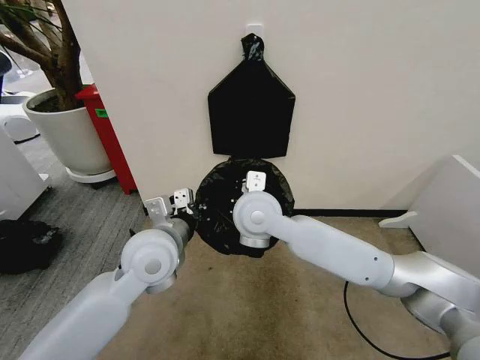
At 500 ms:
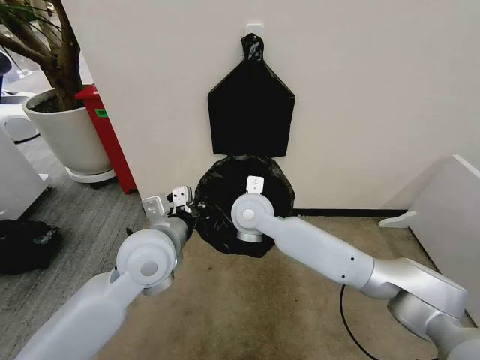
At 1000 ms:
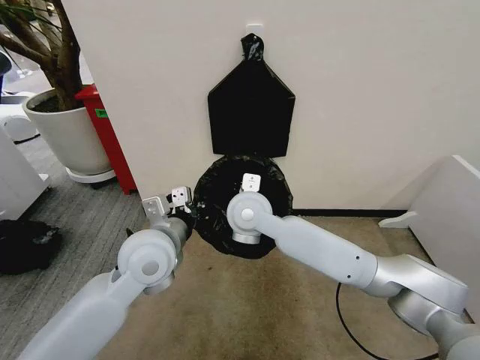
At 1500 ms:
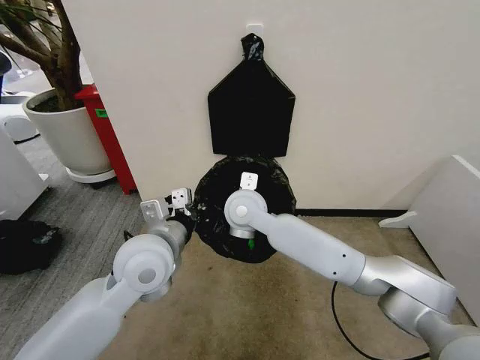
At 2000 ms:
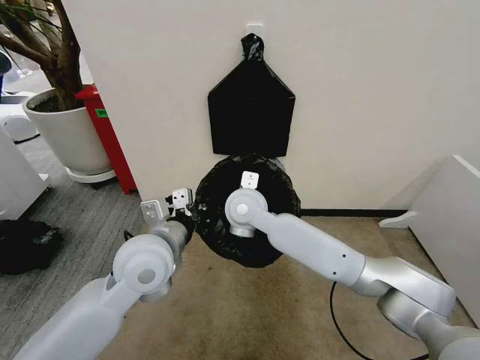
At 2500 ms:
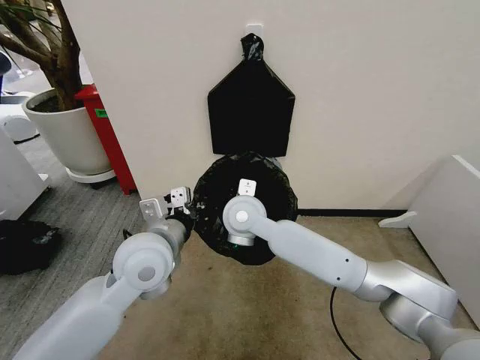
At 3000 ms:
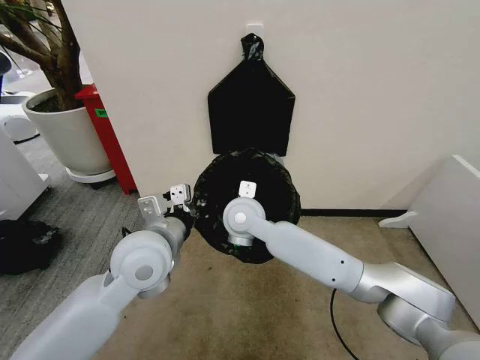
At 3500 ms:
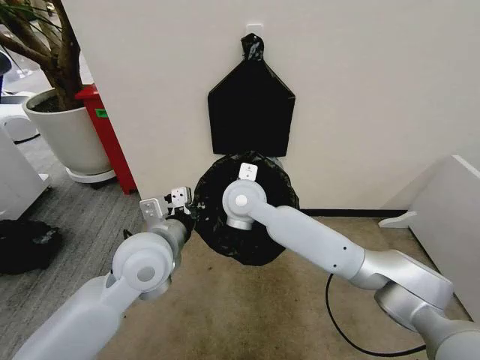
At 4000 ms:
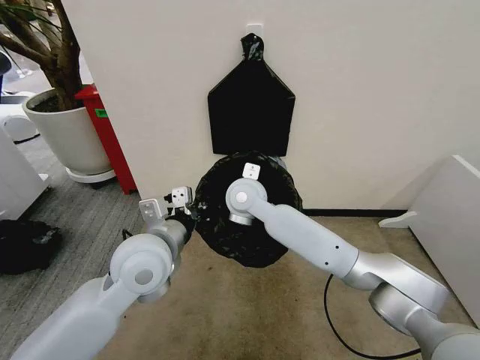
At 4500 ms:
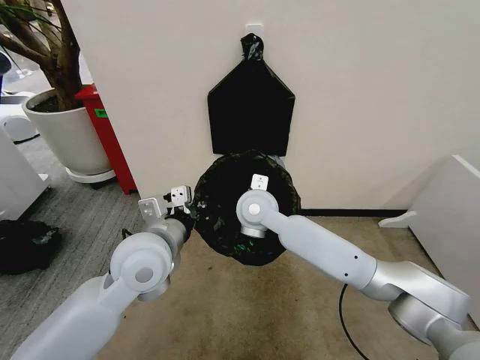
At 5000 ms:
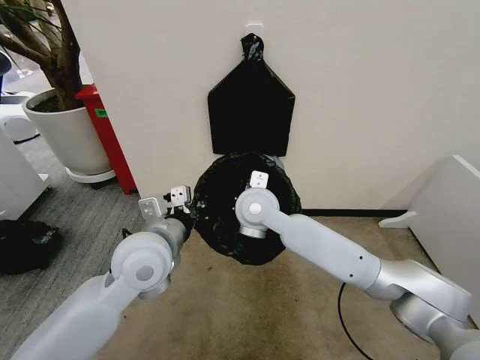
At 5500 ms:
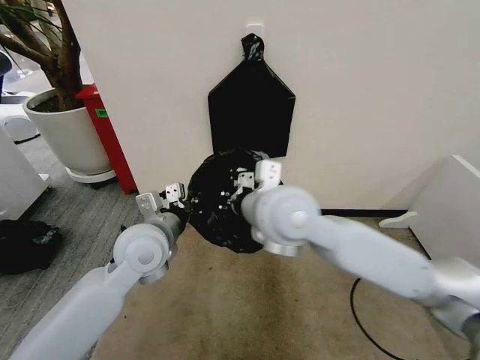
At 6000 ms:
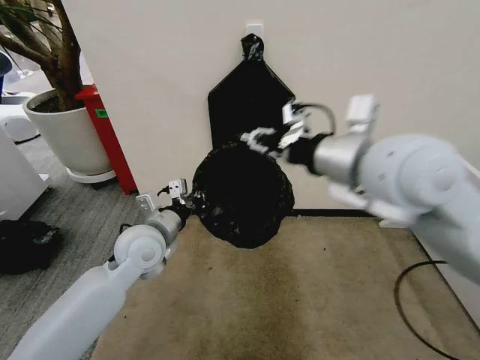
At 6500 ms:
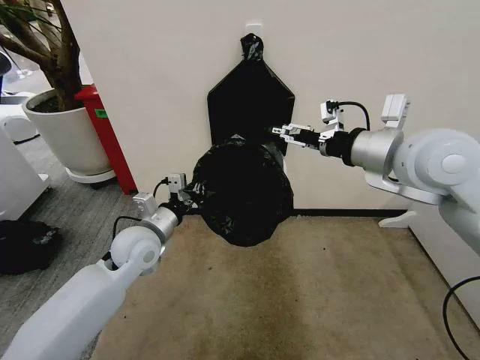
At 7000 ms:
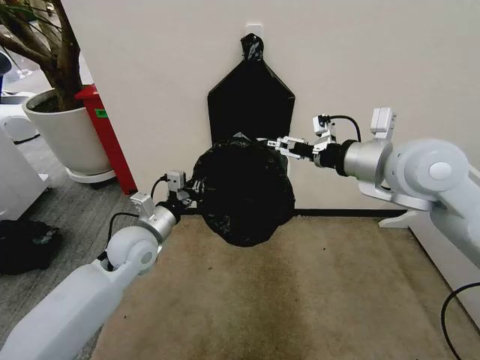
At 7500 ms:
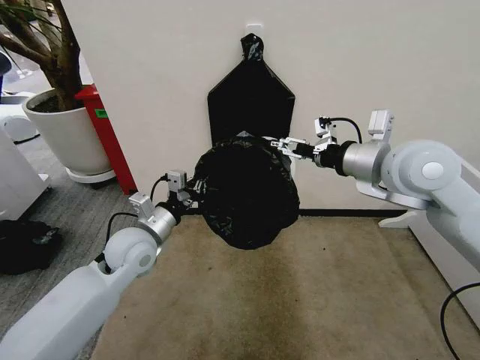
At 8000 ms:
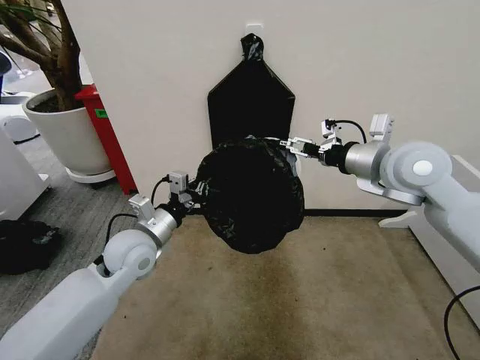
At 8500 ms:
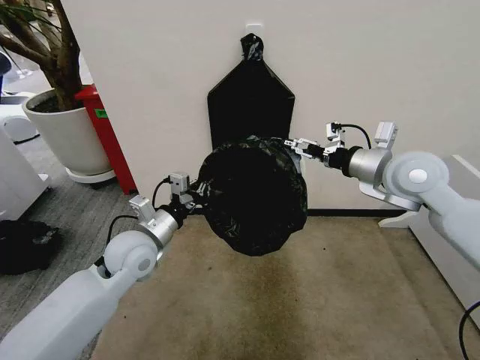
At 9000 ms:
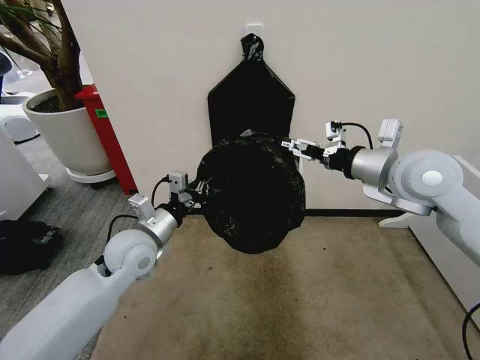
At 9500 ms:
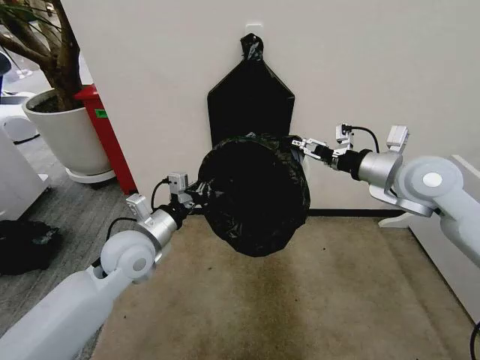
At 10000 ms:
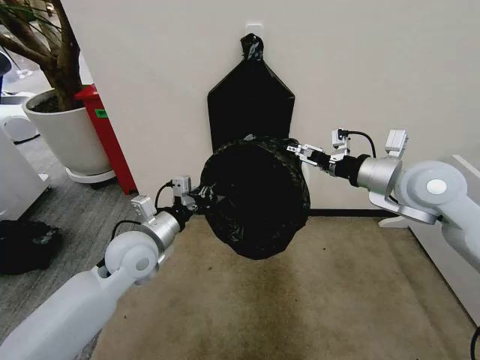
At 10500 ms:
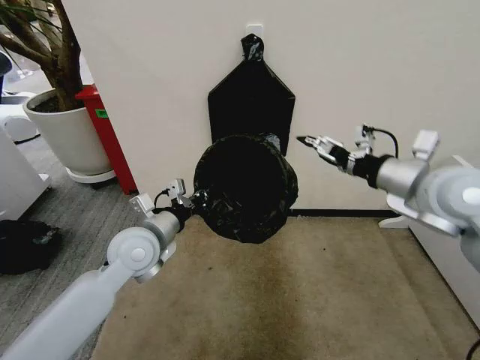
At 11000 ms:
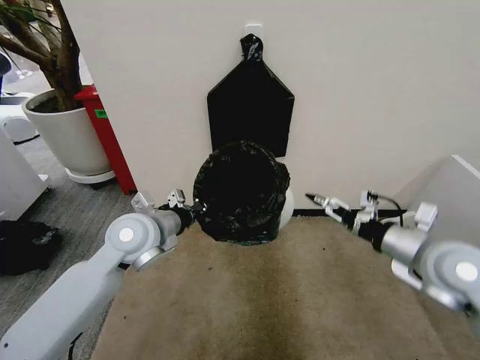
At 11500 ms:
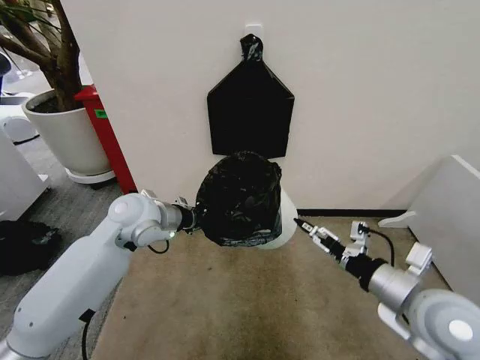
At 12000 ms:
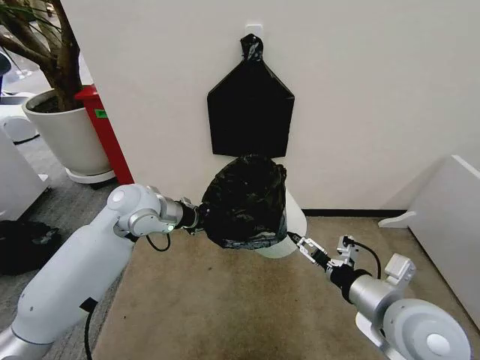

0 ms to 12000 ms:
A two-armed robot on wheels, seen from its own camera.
Task of the whole recording: Place the garbage bag over the trash bin.
0 ms to 2000 ms: The right gripper travels forward by some 5 cm.
2000 ms to 4000 ms: The grippers move only a little.
4000 ms to 6000 ms: The right gripper shifts about 30 cm upward, to the right and backward; the left gripper goes approximately 10 cm forward and downward.
6000 ms to 8000 ms: The right gripper travels forward, to the right and downward by some 15 cm, and opens its fingers.
8000 ms to 10000 ms: The grippers stay close to where they were, moving slightly.
10000 ms to 12000 ms: The left gripper is displaced forward and upward by about 10 cm. Meanwhile the right gripper shifts about 20 cm backward and downward.

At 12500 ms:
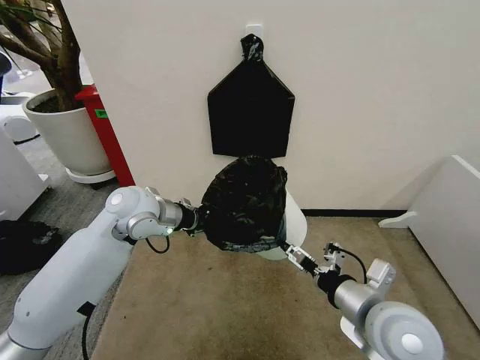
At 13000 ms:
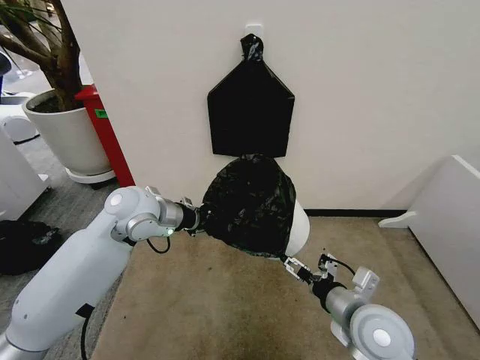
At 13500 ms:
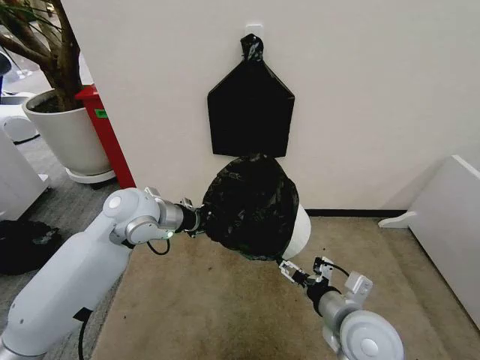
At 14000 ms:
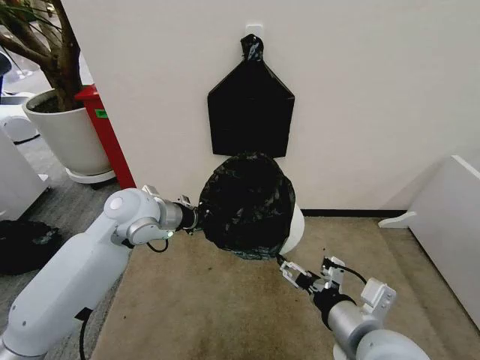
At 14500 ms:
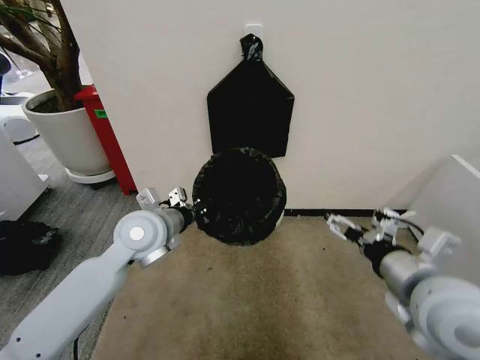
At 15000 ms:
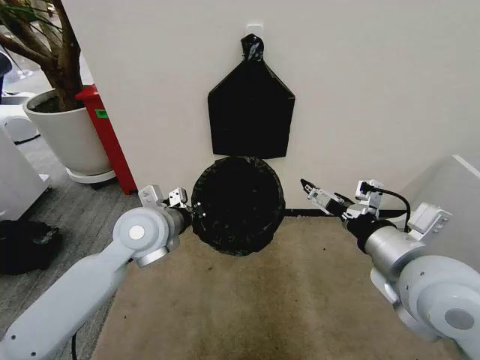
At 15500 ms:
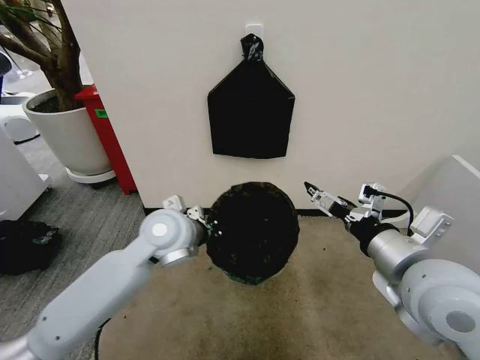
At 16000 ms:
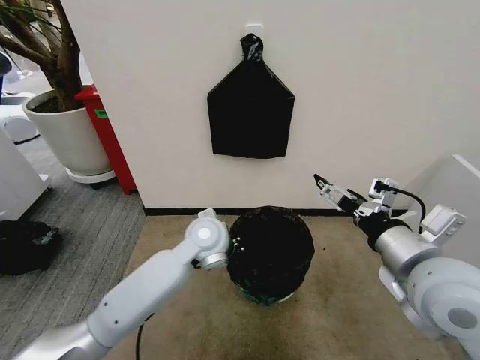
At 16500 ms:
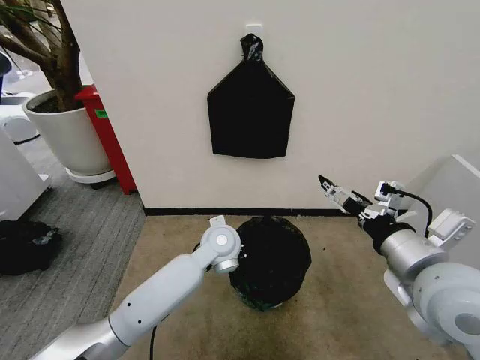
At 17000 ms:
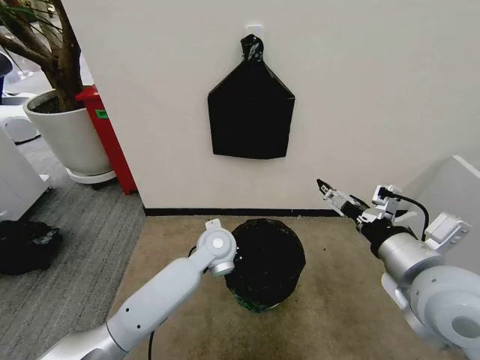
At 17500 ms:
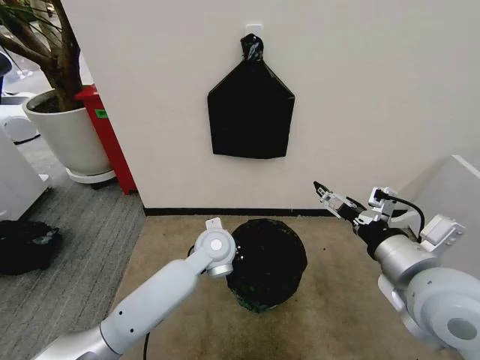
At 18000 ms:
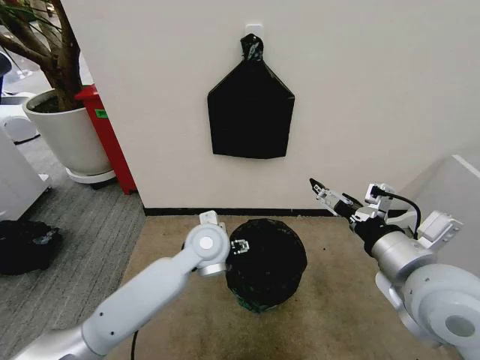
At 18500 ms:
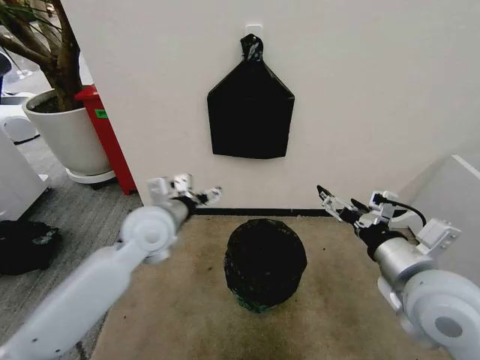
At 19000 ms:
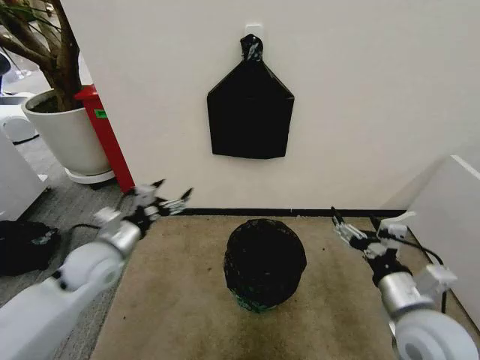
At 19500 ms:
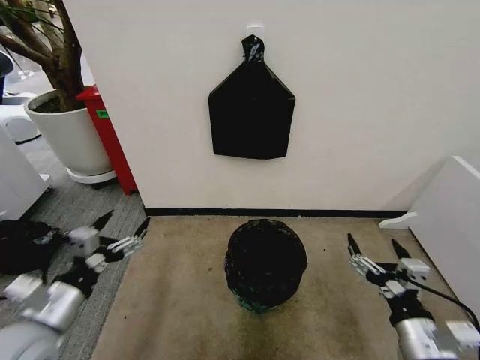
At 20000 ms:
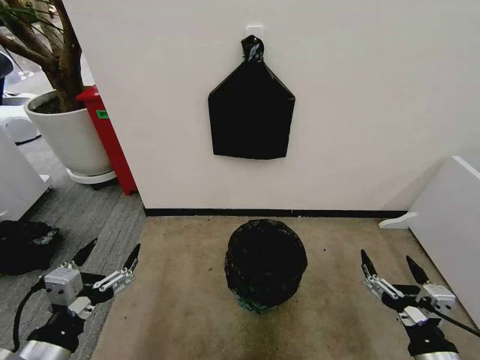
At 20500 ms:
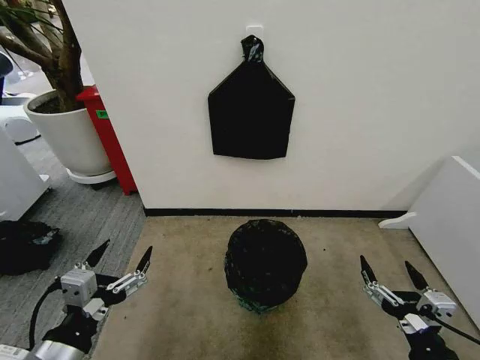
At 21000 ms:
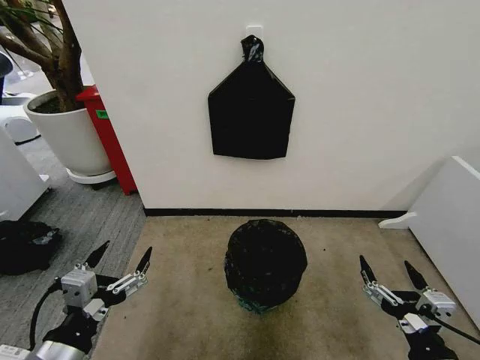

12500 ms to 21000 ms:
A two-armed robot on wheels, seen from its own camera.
Task of the whole recording: Place the garbage bag over the trash bin.
12500 ms to 14500 ms: The left gripper changes place by roughly 5 cm; the right gripper shifts some 10 cm upward.
14500 ms to 16500 ms: The left gripper travels to the right and downward by about 15 cm.
16500 ms to 19000 ms: The left gripper shifts roughly 25 cm to the left, and opens its fingers; the right gripper travels downward by approximately 10 cm.
19000 ms to 21000 ms: The left gripper shifts roughly 25 cm backward. Meanwhile the right gripper shifts about 10 cm backward.

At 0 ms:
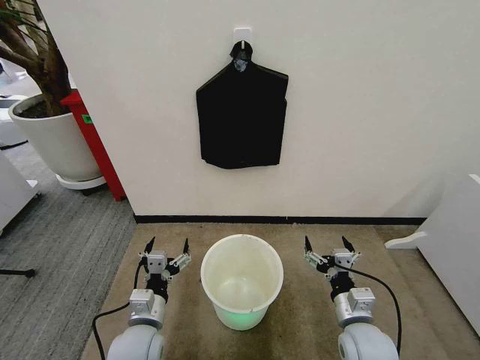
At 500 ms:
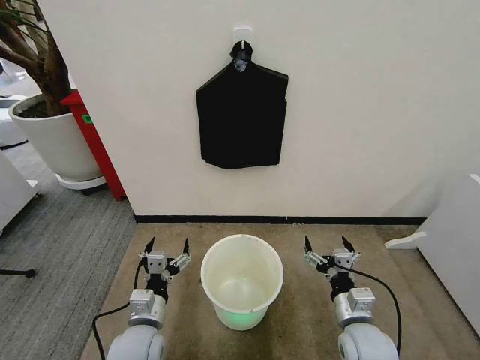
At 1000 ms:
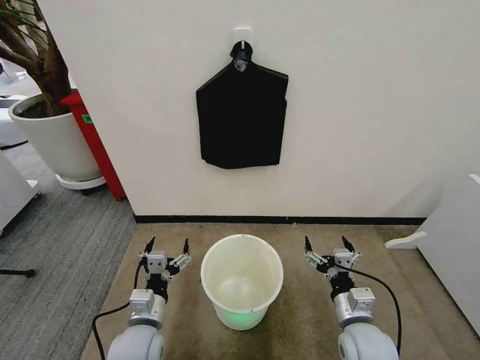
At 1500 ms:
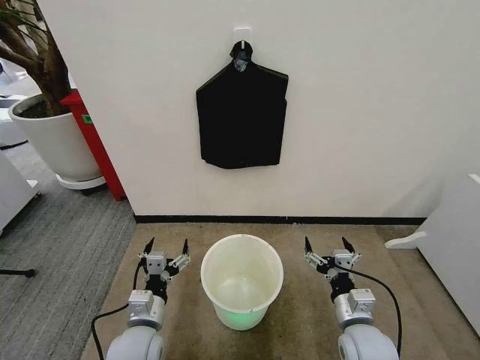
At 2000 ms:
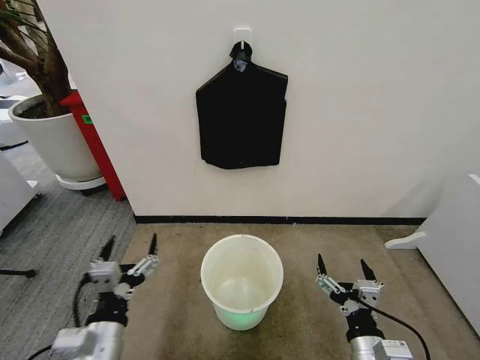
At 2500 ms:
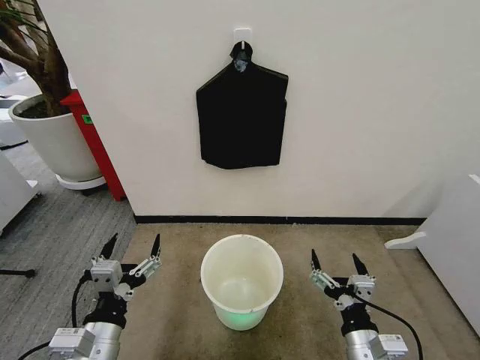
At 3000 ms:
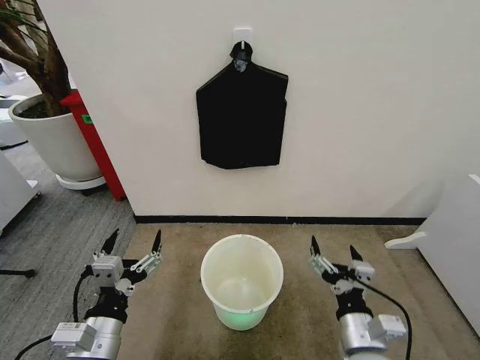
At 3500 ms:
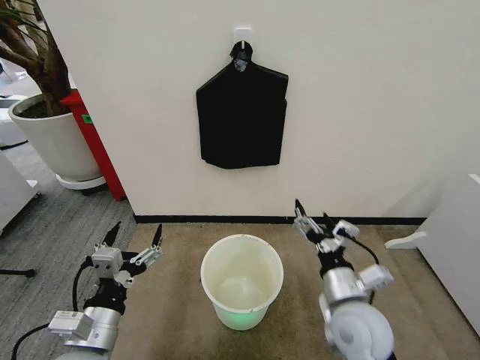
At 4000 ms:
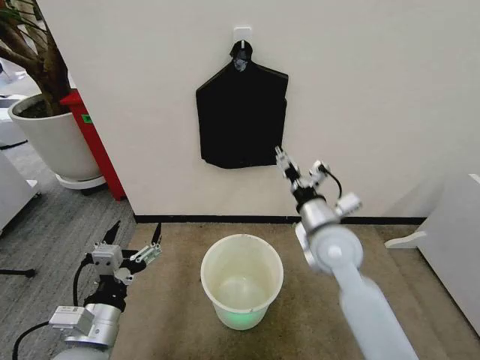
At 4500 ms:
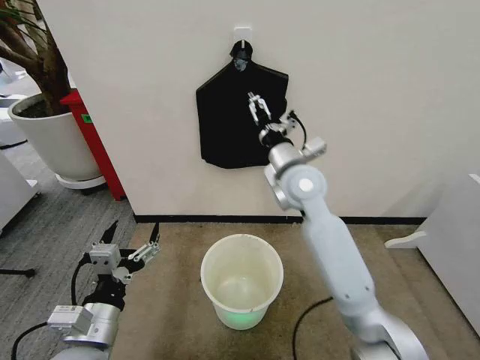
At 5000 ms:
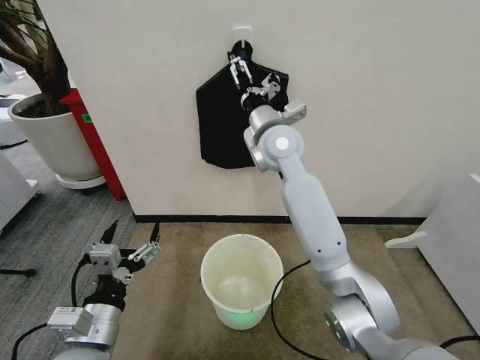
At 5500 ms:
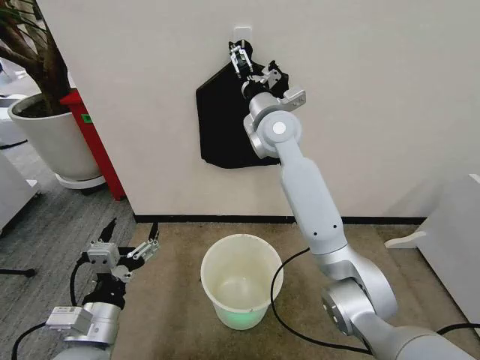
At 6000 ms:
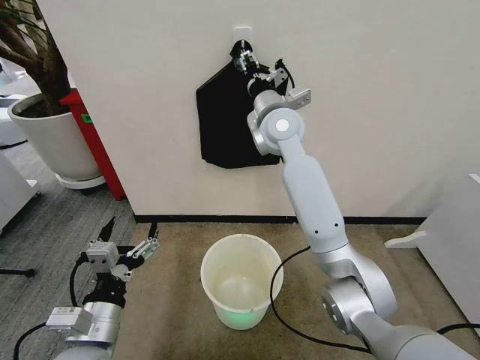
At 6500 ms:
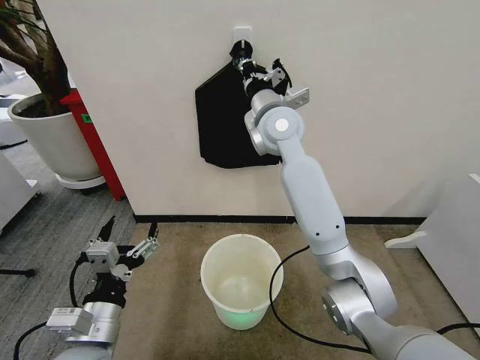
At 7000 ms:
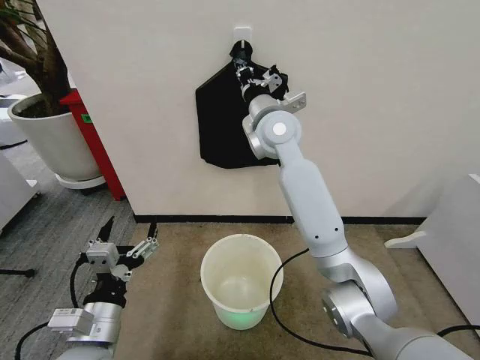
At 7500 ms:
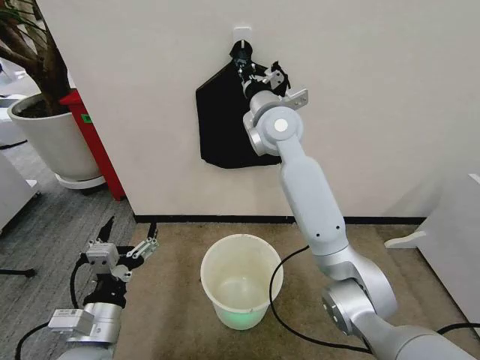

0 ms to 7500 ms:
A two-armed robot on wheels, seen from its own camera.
Task of the whole recording: Place the garbage bag over the trash bin.
2000 ms to 4000 ms: The right gripper travels forward and upward by about 25 cm.
4000 ms to 5500 ms: The right gripper moves forward, upward and to the left, some 25 cm.
5500 ms to 7500 ms: The right gripper closes.
